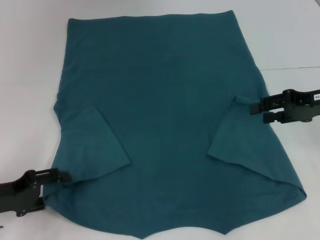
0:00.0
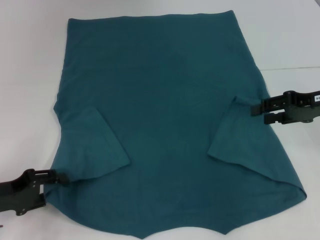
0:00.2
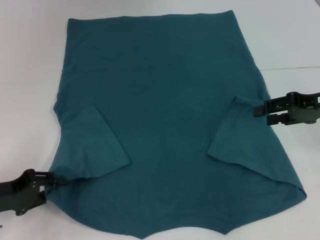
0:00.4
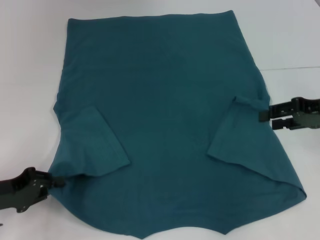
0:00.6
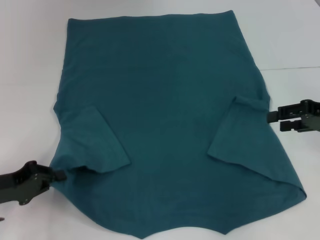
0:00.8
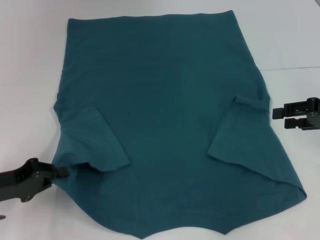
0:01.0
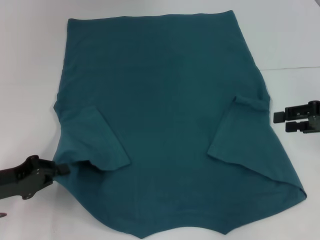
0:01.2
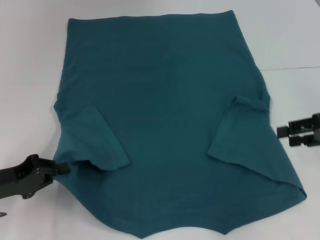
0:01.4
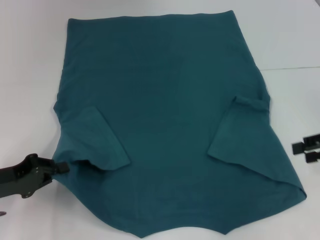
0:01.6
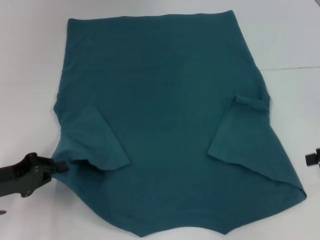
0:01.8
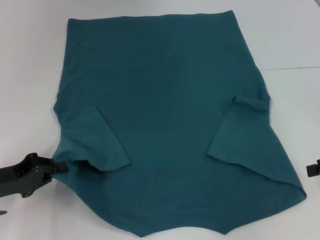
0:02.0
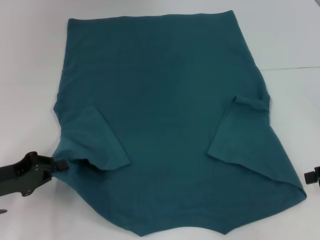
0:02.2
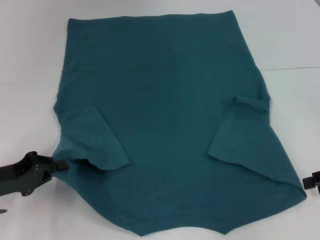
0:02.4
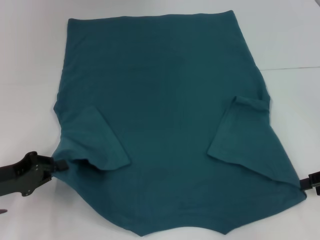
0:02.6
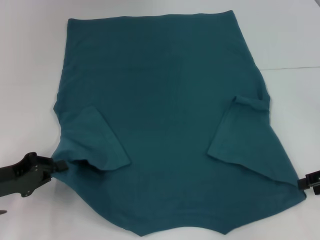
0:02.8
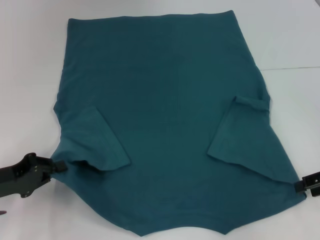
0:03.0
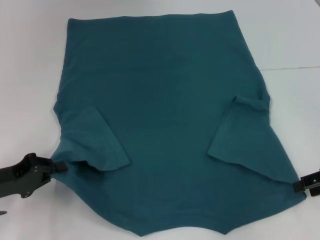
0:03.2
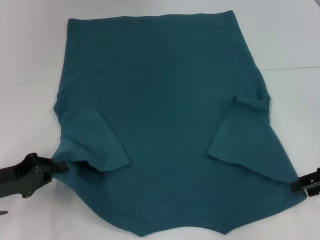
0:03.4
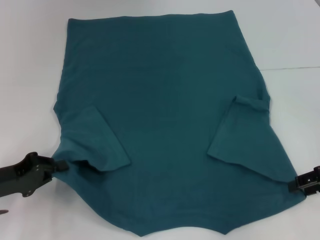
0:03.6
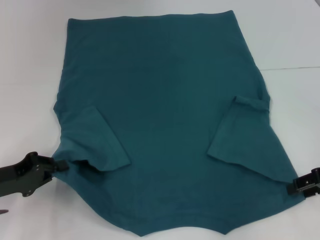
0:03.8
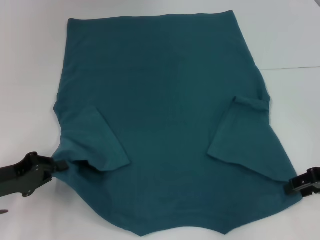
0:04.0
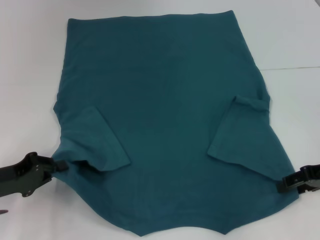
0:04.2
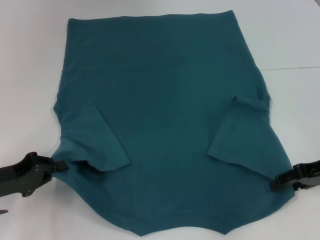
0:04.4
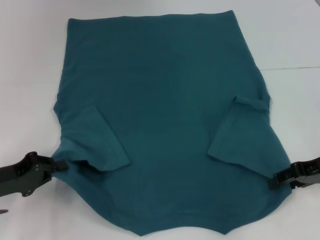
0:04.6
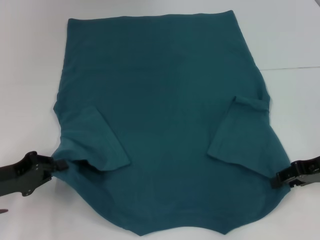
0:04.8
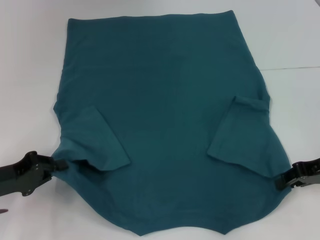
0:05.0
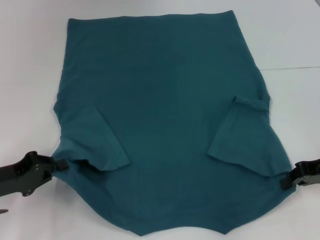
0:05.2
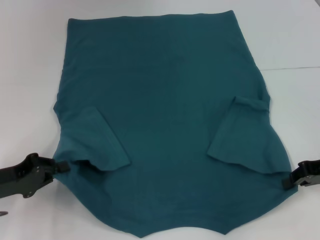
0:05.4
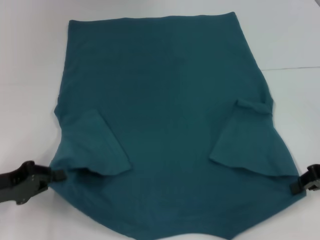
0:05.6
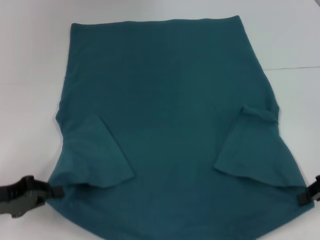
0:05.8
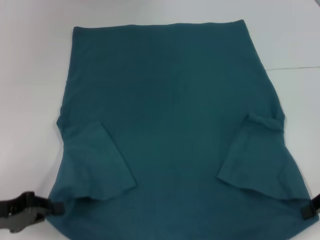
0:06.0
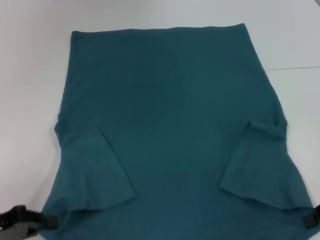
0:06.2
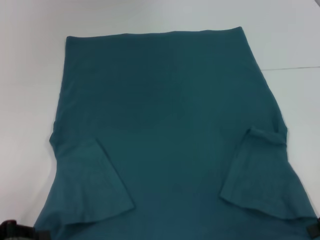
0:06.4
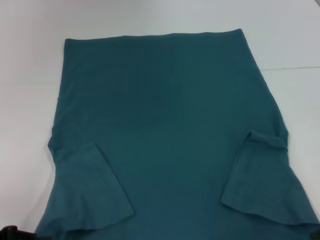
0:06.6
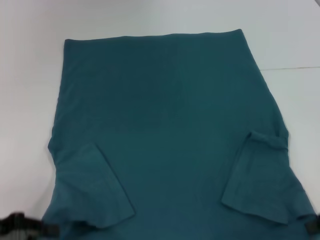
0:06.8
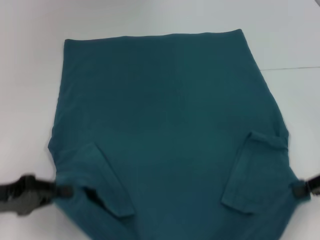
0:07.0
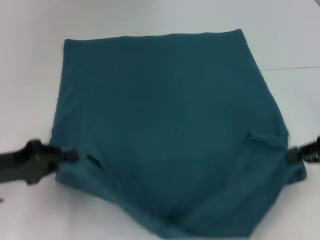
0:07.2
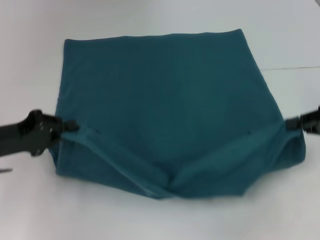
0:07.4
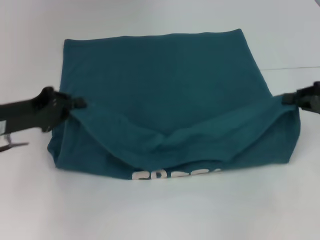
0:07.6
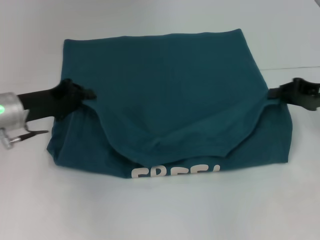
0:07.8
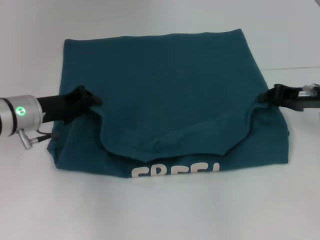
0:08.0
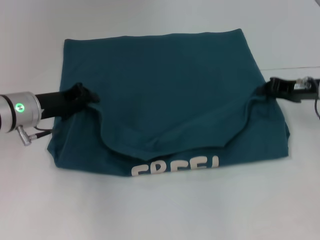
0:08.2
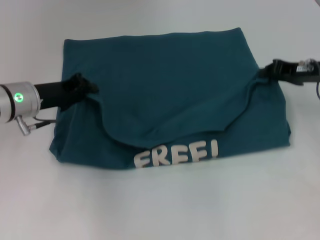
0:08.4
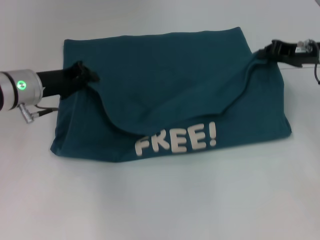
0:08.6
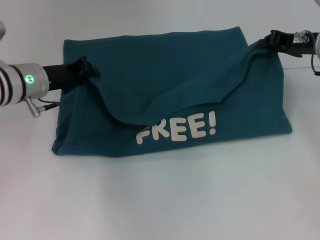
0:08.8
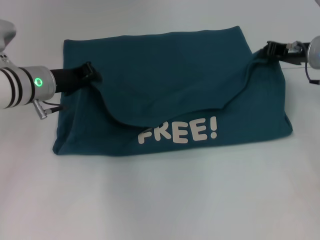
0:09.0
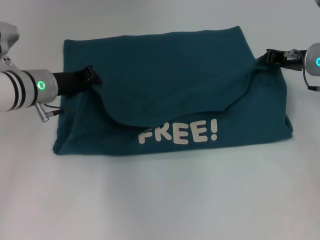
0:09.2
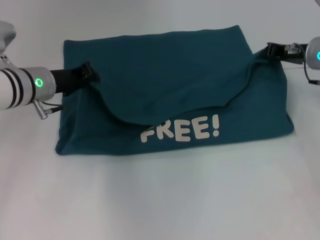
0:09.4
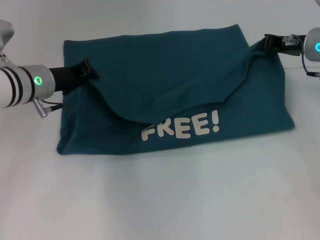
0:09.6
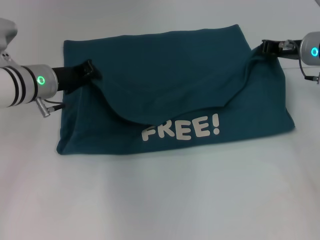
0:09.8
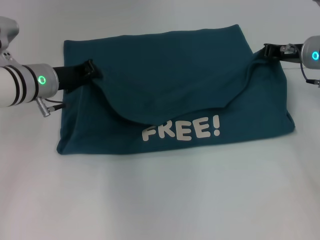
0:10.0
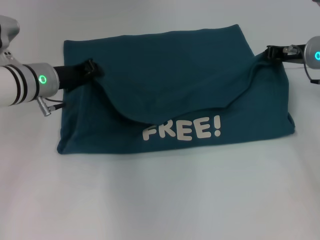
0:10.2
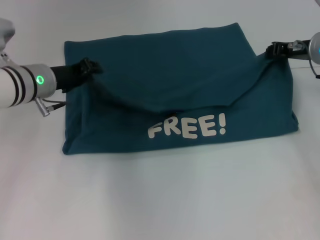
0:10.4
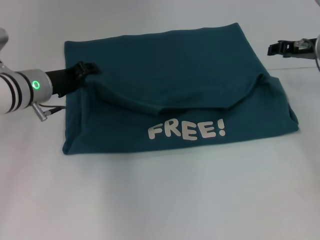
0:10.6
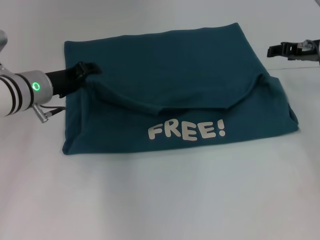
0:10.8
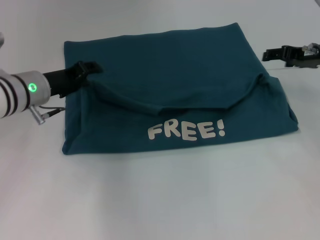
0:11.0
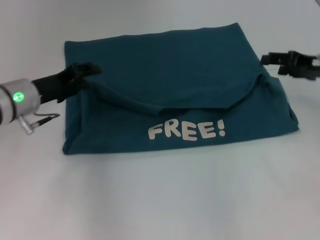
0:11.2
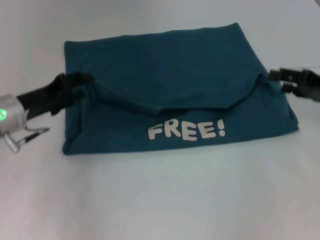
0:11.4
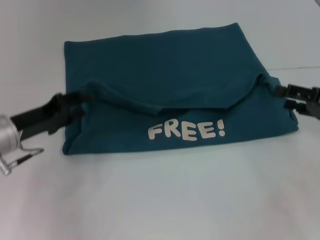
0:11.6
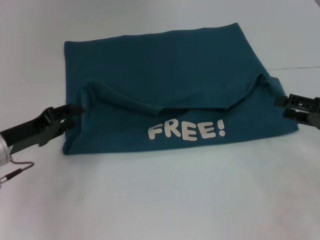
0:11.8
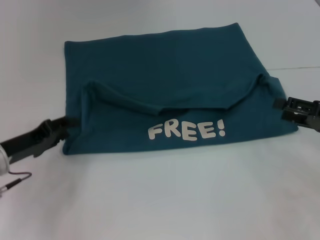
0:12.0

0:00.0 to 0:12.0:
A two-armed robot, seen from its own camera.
Step, 0:00.8 to 0:05.4: Grab the bottom right corner with your right hand.
Step, 0:05.6 to 0:11.0: Fold the clothes to the left.
Step, 0:05.6 to 0:11.0: Fold the clothes to the right.
0:00.0 to 0:01.6: The left gripper closes. The right gripper travels to the right by about 5 cm.
0:01.6 to 0:03.0: The grippers stay close to where they were, moving slightly.
0:03.0 to 0:04.4: The grippers stay close to where they were, moving slightly.
0:04.4 to 0:06.0: The right gripper closes.
0:06.0 to 0:07.6: The left gripper shifts about 10 cm forward and upward, while the right gripper moves forward, some 5 cm.
0:07.6 to 0:09.0: The left gripper goes some 10 cm forward and to the right, while the right gripper travels forward and to the left by roughly 15 cm.
0:09.0 to 0:10.4: There are only small adjustments of the grippers.
0:10.4 to 0:12.0: The right gripper moves backward and to the right, roughly 15 cm, and opens; the left gripper shifts approximately 15 cm backward, to the left and downward.

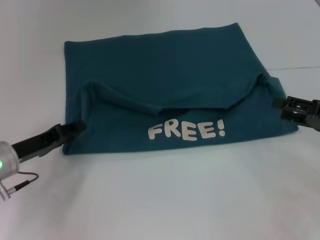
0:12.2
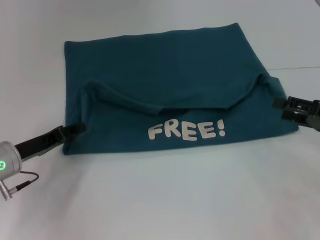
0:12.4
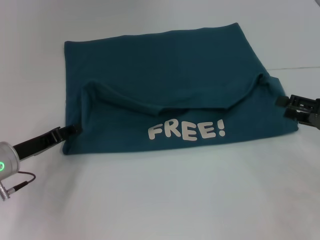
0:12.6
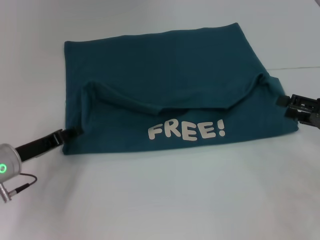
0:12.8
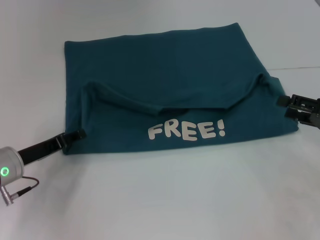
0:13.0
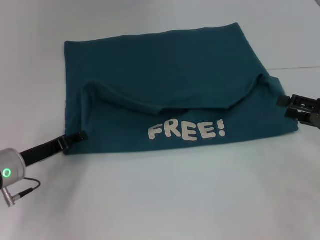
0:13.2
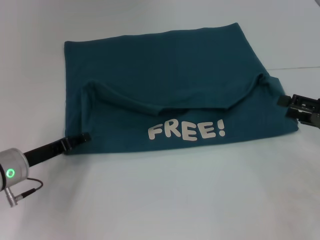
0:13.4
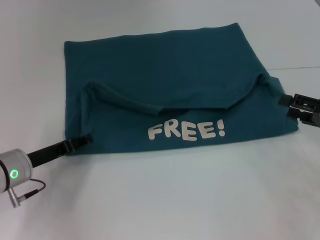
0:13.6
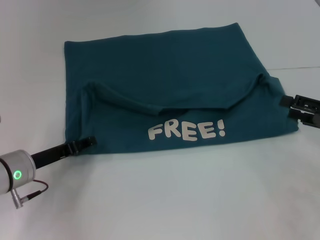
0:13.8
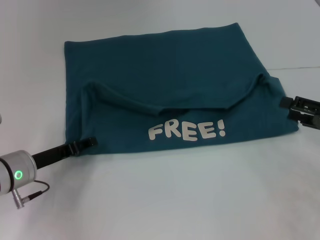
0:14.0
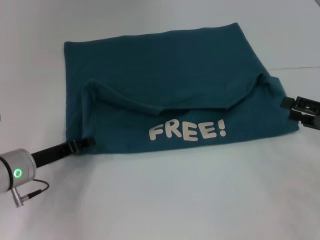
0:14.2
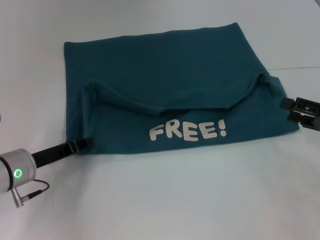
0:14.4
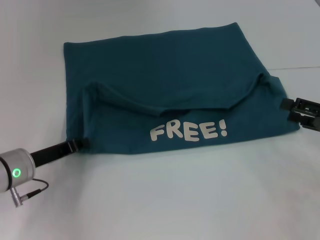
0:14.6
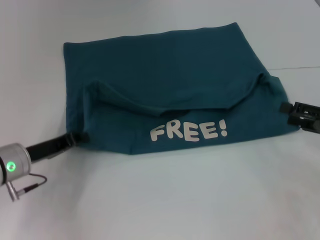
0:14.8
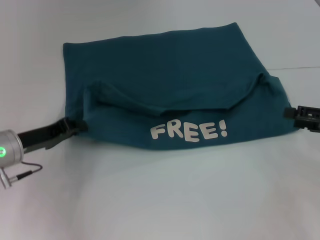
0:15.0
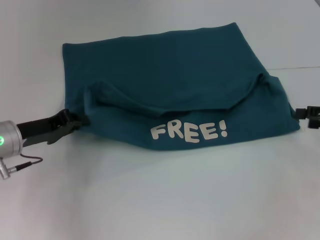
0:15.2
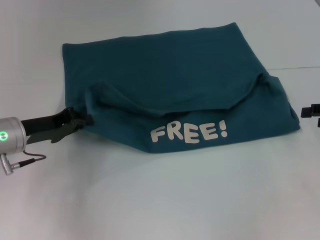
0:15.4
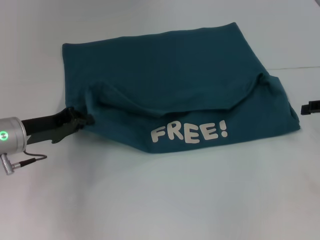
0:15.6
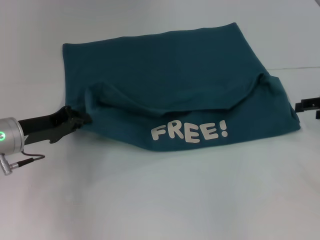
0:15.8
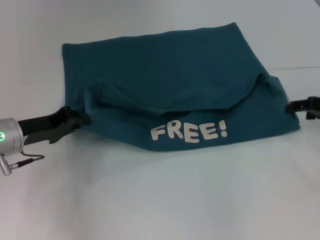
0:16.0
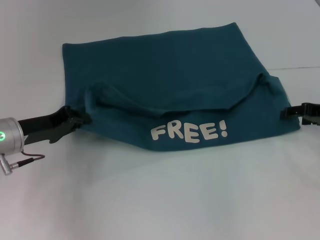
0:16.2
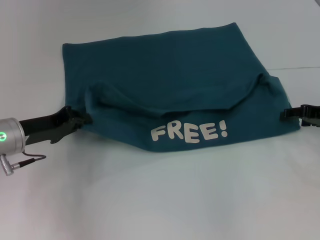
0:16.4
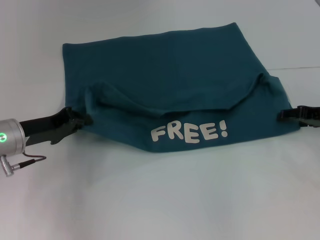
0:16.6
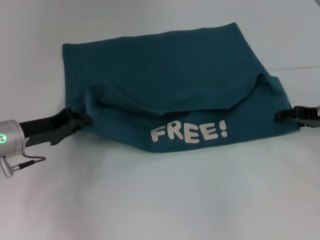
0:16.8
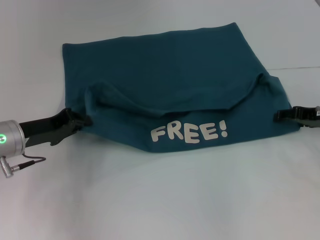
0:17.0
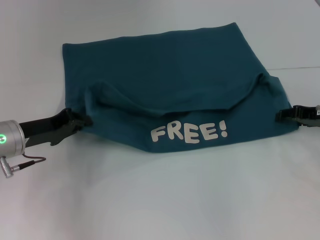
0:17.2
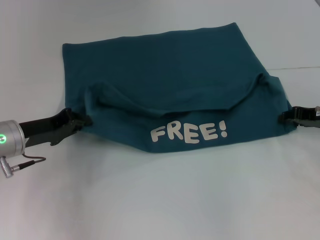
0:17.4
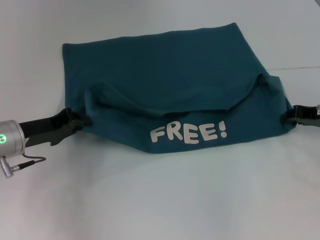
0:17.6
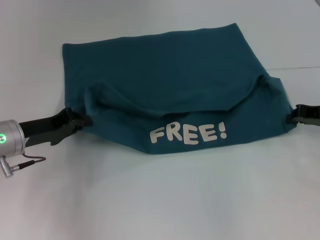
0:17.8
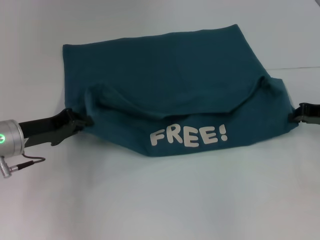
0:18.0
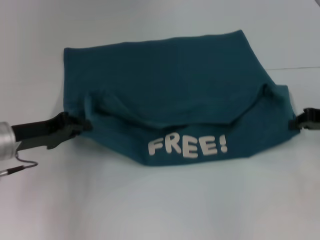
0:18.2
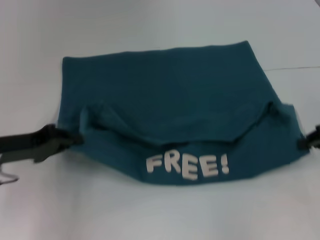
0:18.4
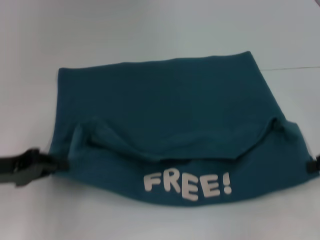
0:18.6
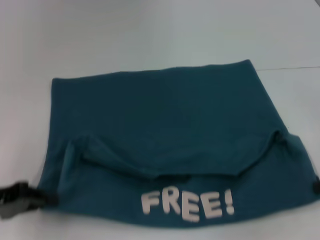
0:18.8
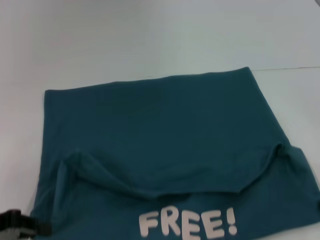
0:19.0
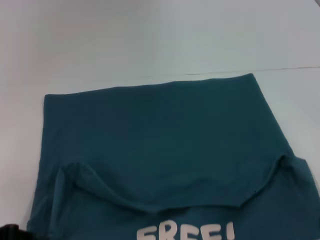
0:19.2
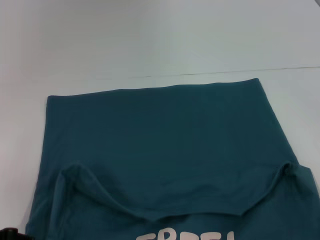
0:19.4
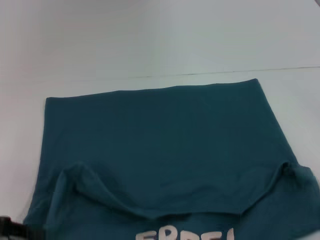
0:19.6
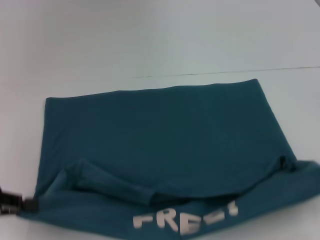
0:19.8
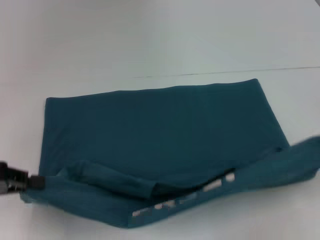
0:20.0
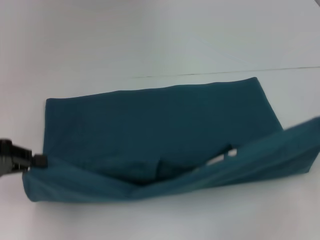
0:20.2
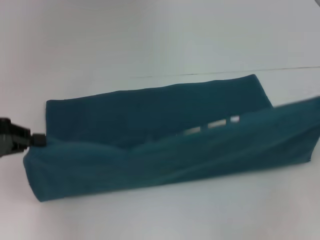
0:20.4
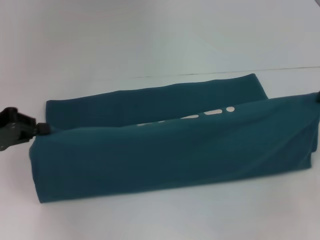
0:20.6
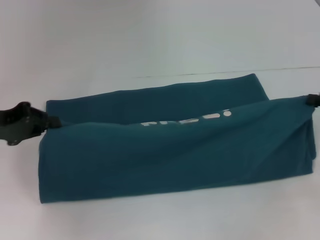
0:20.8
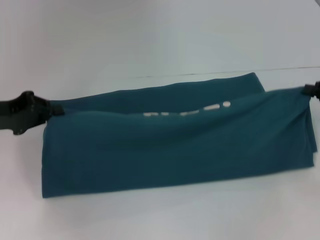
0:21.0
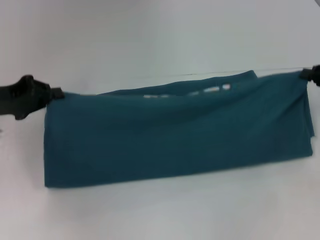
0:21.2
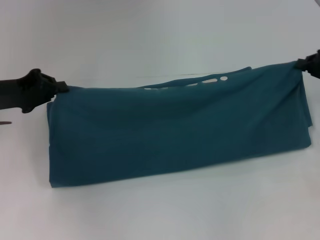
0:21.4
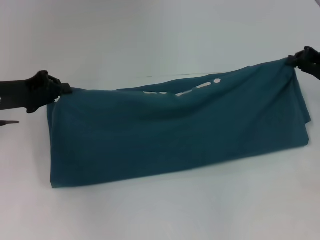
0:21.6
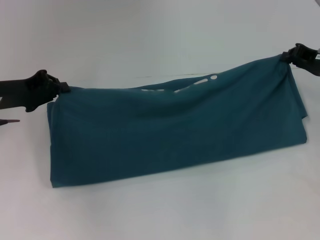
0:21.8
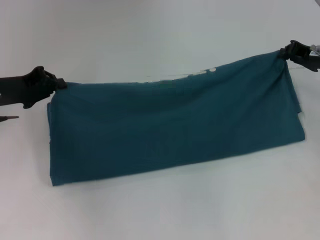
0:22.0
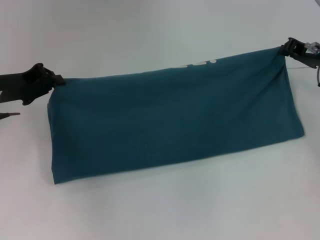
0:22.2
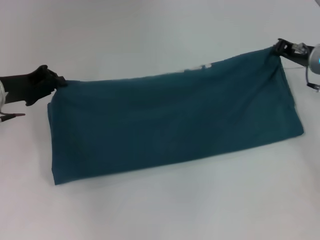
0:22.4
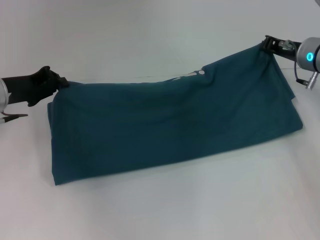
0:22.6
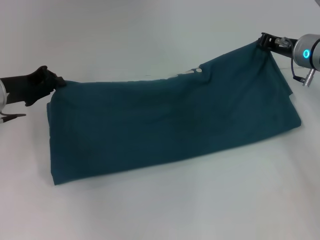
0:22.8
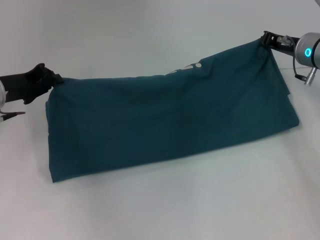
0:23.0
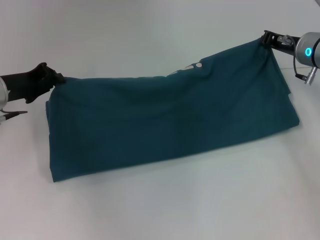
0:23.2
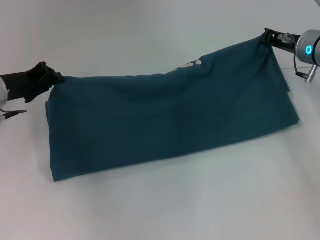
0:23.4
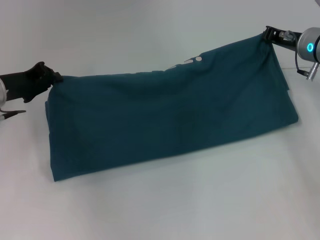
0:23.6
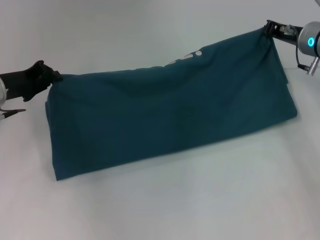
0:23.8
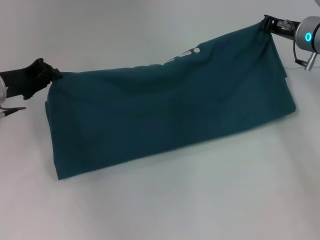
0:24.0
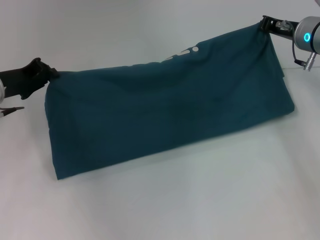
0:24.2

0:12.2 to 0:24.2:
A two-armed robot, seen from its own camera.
Step, 0:12.2 to 0:18.8: Pull the clothes with your left hand.
Step, 0:12.2 to 0:18.8: Pull the clothes with your right hand.
0:12.2 to 0:13.8: There are only small adjustments of the grippers.
0:13.8 to 0:15.2: The left gripper moves approximately 5 cm, and closes.
0:15.2 to 0:16.6: The right gripper is displaced forward by some 5 cm.
0:16.6 to 0:18.2: The right gripper closes.
0:18.2 to 0:19.8: The left gripper goes about 15 cm backward and to the left, while the right gripper is displaced backward by some 10 cm.
0:19.8 to 0:21.2: Both grippers travel together forward, approximately 10 cm.
0:21.2 to 0:22.6: The right gripper goes approximately 15 cm to the left and forward. Meanwhile the left gripper shifts by roughly 5 cm.
0:22.6 to 0:24.2: There are only small adjustments of the grippers.
